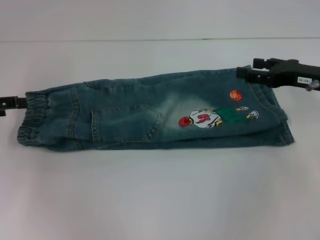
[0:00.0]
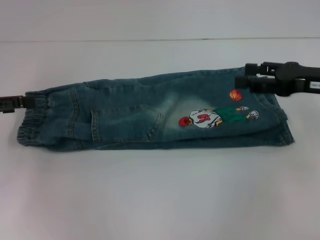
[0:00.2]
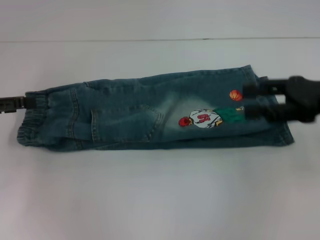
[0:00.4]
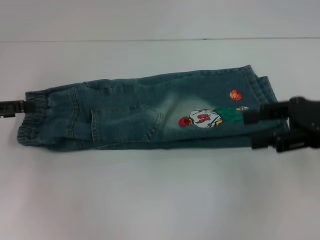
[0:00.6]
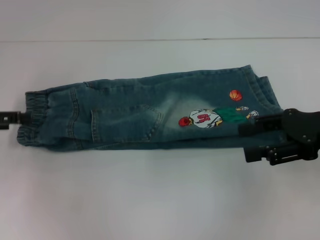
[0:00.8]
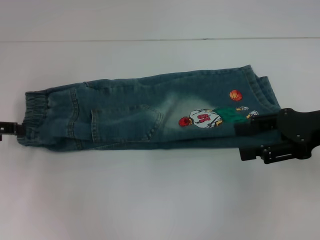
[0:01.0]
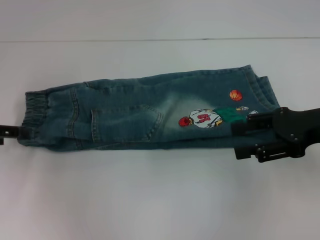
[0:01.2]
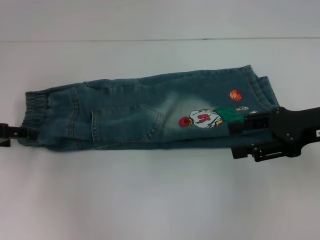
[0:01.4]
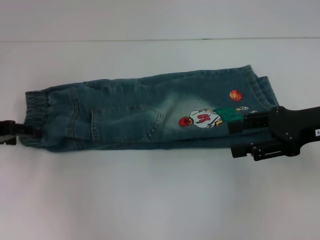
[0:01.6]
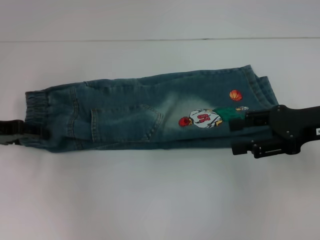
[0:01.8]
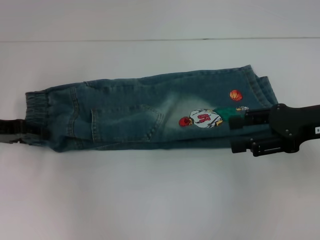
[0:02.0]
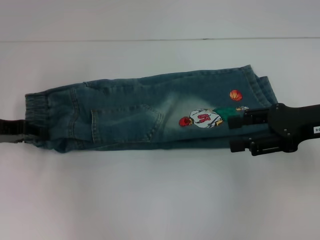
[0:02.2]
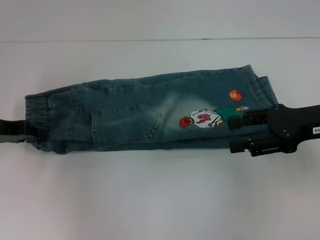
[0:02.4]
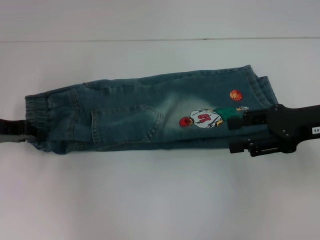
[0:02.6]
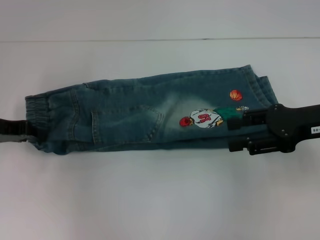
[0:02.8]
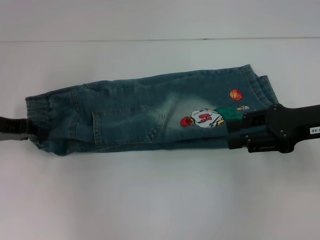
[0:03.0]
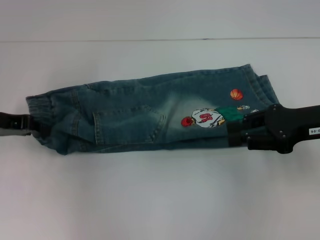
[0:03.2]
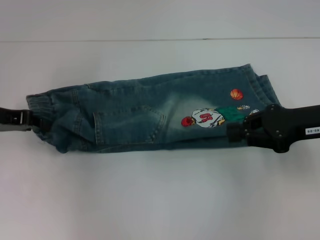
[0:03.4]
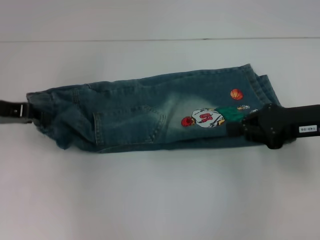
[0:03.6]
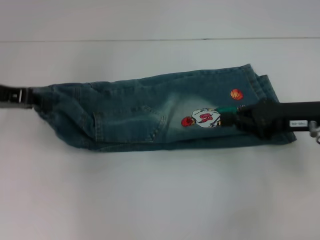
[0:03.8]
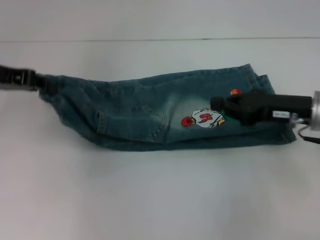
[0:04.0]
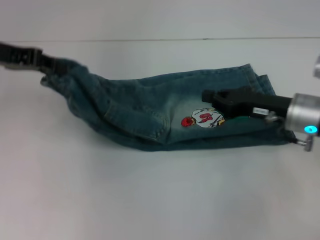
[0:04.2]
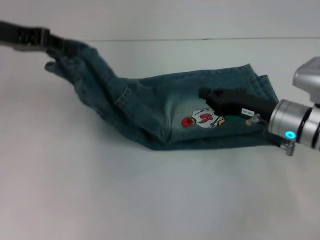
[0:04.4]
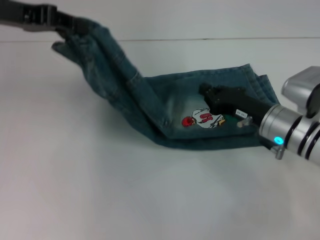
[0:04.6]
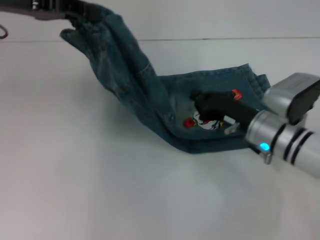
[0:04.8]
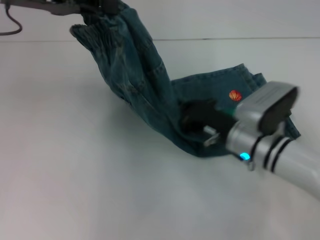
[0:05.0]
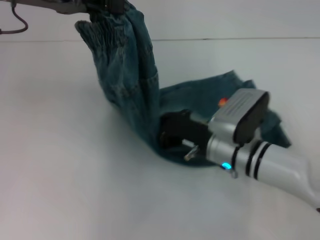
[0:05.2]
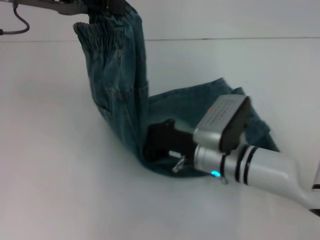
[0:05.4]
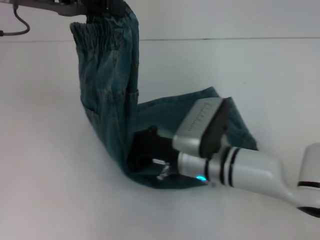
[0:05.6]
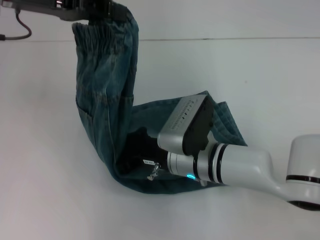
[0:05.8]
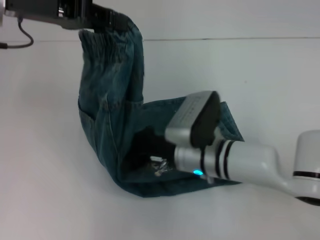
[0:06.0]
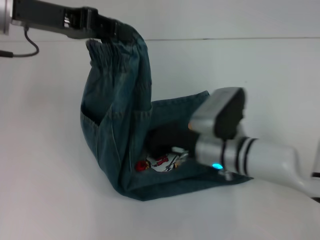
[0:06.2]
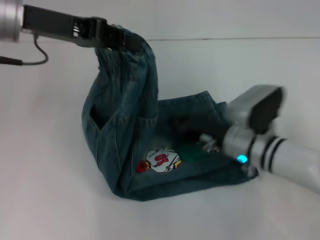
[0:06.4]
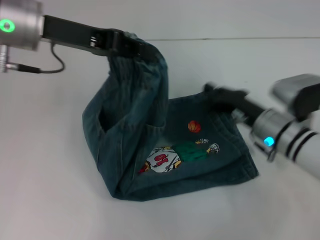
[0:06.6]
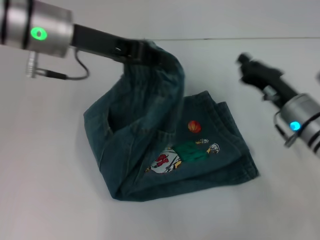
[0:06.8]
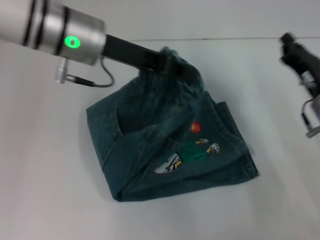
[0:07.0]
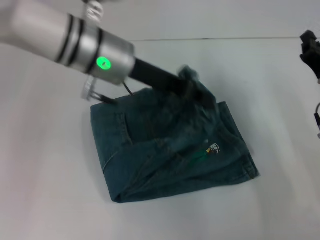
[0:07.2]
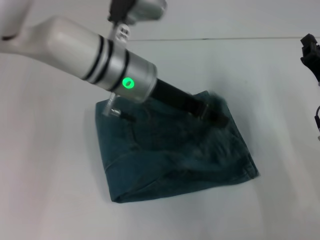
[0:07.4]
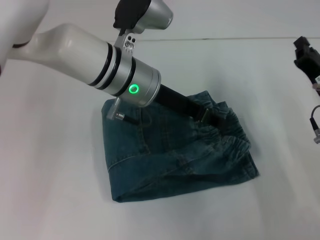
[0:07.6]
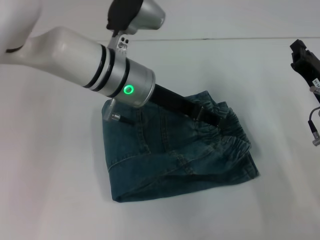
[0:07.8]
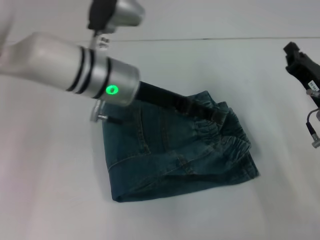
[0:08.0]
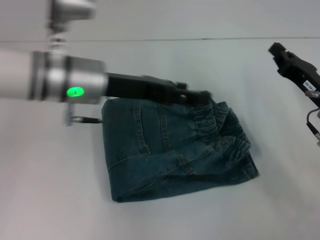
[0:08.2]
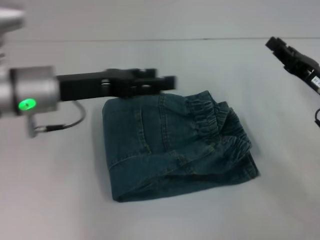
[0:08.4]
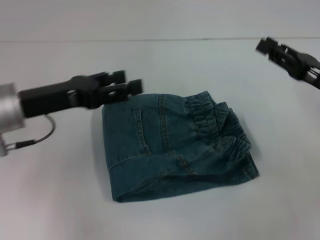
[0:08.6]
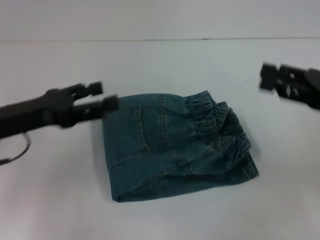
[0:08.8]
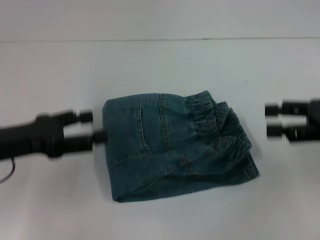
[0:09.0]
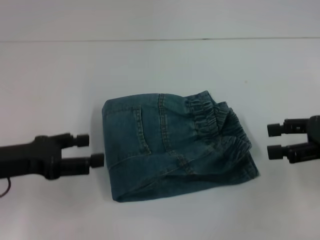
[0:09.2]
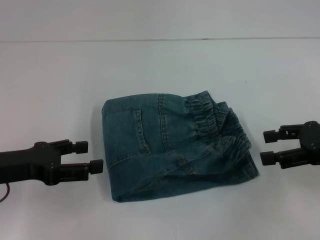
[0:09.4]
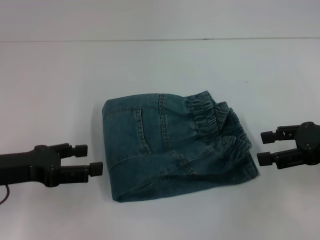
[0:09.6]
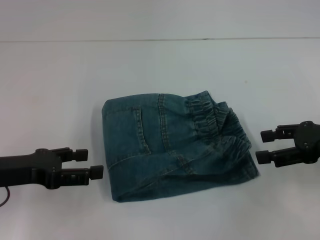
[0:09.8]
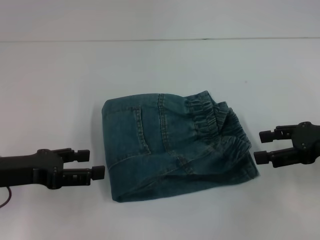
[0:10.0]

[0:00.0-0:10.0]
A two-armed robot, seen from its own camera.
Step, 0:00.0 to 0:03.0: Grab the waistband with your right hand.
Step, 0:03.4 to 0:05.8: Press the middle of the pants with your left hand.
Step, 0:06.2 to 0:07.4: Fold to the left with your right hand.
0:00.0 to 0:01.4: The right gripper travels backward by roughly 5 cm.
0:01.4 to 0:02.8: The left gripper closes up.
0:02.8 to 0:04.2: The right gripper moves downward, some 5 cm, and closes up; the left gripper is displaced upward by some 10 cm.
0:04.2 to 0:05.8: The left gripper travels to the right by about 5 cm. The right gripper heads to the left, covering about 15 cm.
0:05.8 to 0:07.2: The right gripper shifts about 20 cm to the right. The left gripper travels to the right and downward by roughly 15 cm.
0:07.2 to 0:08.6: The right gripper moves approximately 5 cm. The left gripper goes roughly 15 cm to the left and backward, and opens up.
0:08.6 to 0:10.0: The right gripper opens; the left gripper shifts some 5 cm backward.
